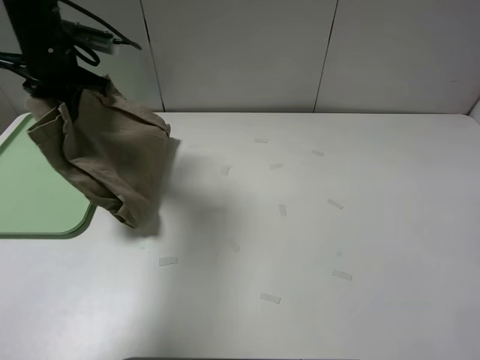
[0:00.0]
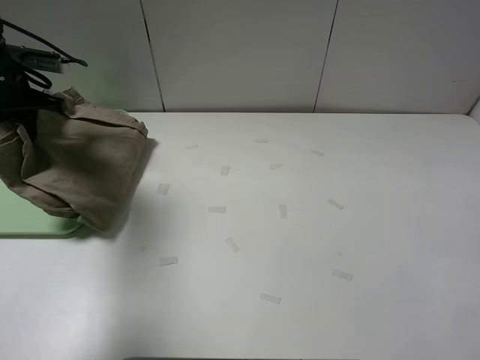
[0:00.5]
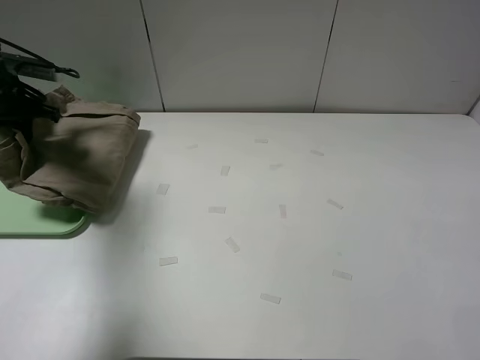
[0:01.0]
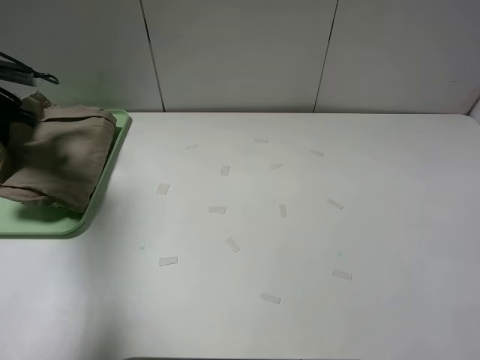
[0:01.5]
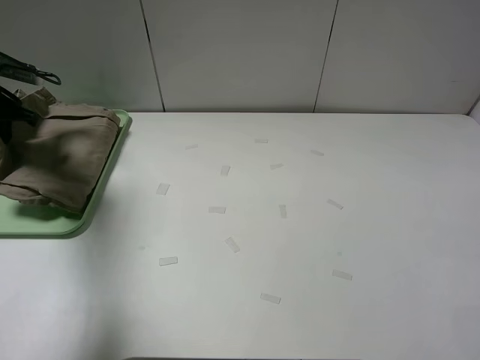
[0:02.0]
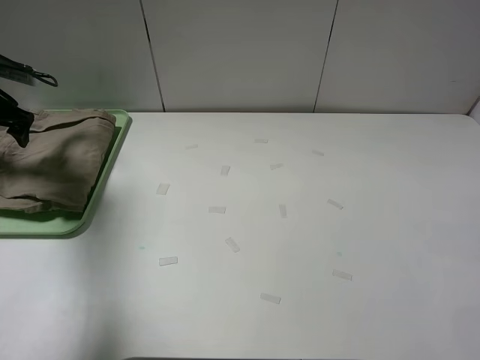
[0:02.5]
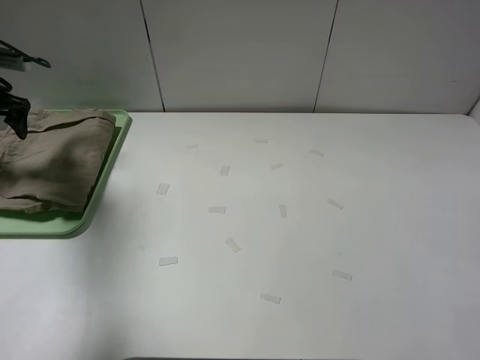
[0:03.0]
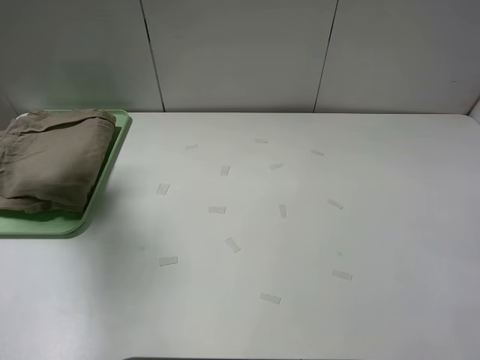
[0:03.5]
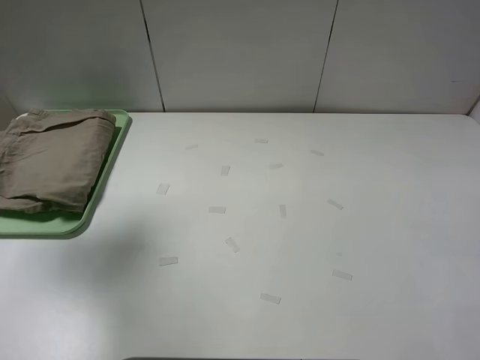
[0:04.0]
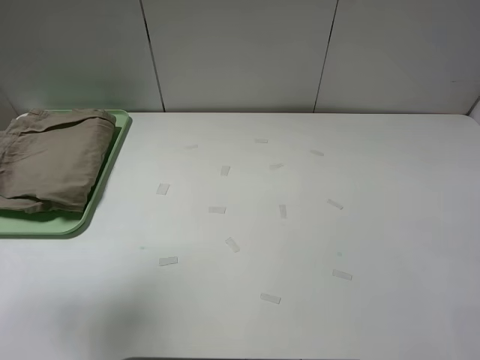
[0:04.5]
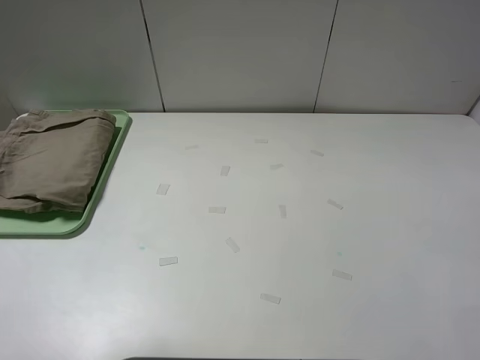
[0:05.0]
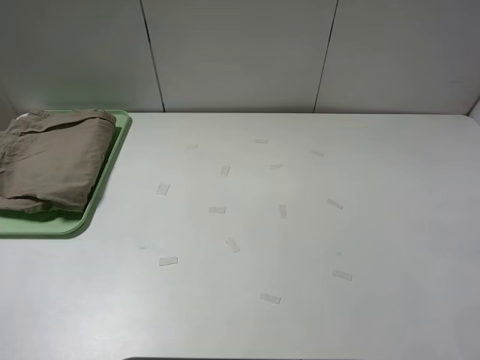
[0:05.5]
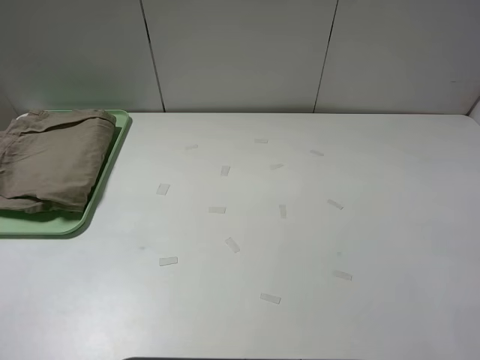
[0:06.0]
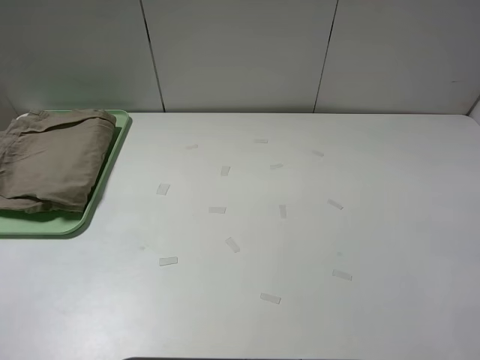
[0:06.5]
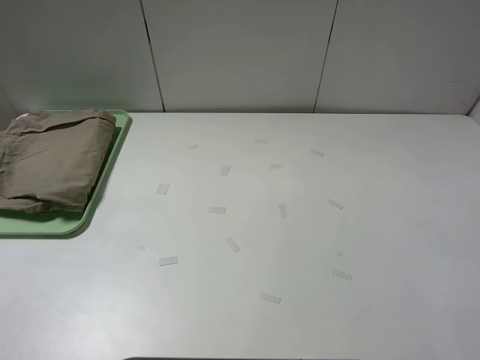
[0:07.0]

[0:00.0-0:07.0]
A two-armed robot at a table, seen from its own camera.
Task of the whole recording: fold the khaki jeans in half with two grippers, then fold them in half again, and use the left claw to place the folded fold khaki jeans on the tray.
Step, 0:00.0 to 0:02.0: Place the folded khaki trousers on the green tray with the left gripper.
0:00.0 to 0:02.0: The left gripper shifts some 15 cm to the left and downward.
0:02.0 to 0:03.5: The left gripper goes roughly 15 cm upward and backward, and opens its fingers.
0:03.5 to 0:05.0: The left gripper is displaced backward by approximately 30 cm.
